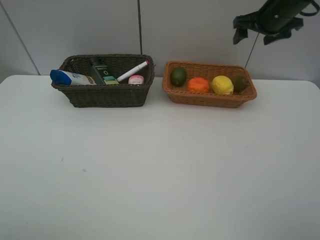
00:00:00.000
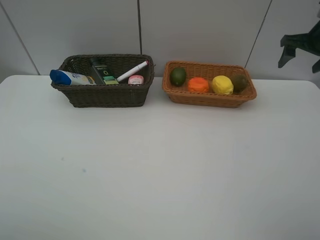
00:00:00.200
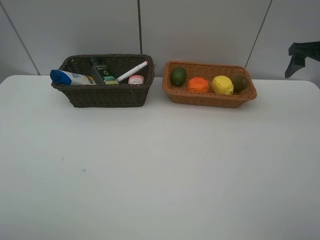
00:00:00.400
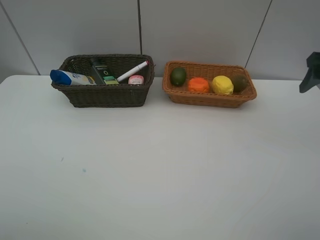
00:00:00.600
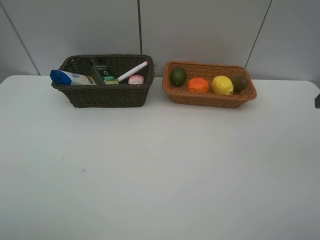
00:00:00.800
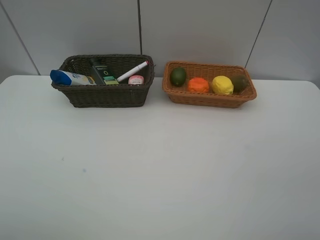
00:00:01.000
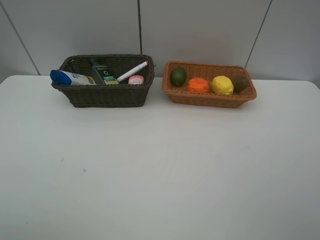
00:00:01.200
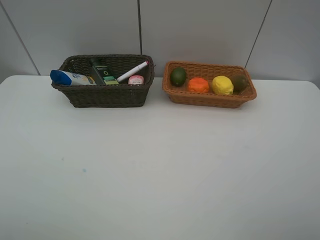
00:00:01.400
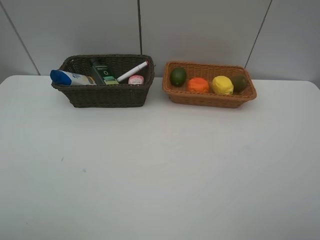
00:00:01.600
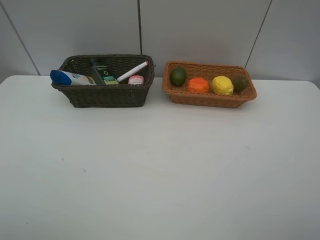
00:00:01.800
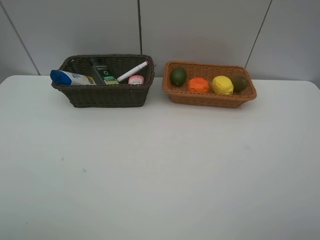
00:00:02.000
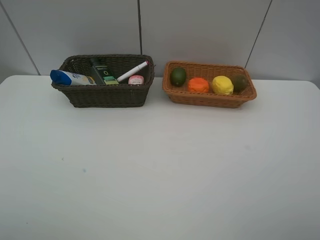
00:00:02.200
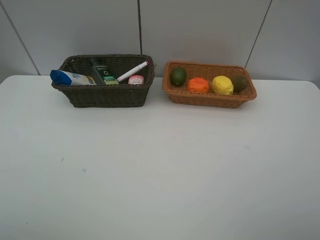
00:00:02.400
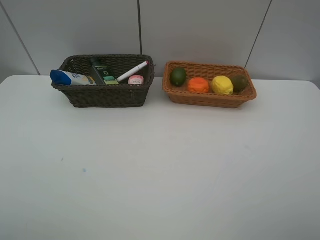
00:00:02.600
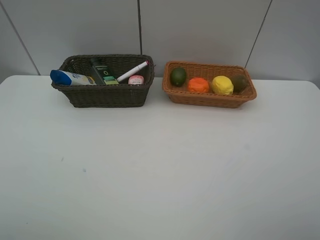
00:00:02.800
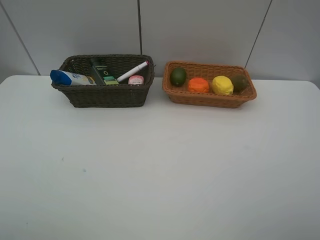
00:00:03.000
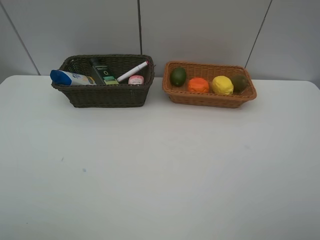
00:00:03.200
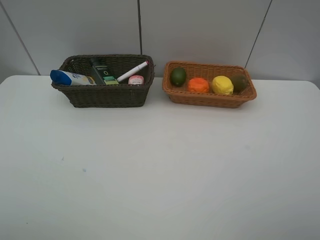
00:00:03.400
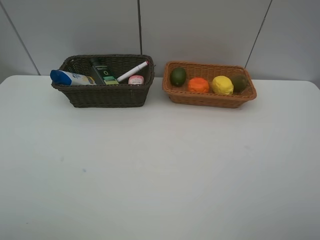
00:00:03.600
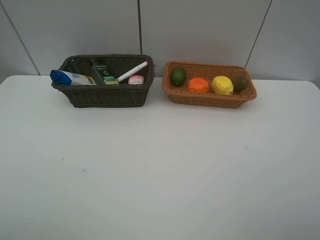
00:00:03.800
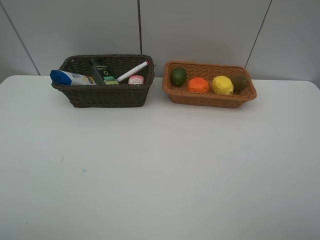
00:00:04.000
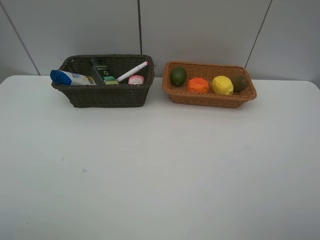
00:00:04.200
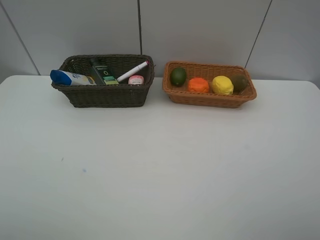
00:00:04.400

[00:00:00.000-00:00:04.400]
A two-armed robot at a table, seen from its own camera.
Task of the whole recording: Place multiple objects separately in different baskets.
00:00:00.000 to 00:00:01.400: The right gripper heads backward, covering about 40 cm.
00:00:03.000 to 00:00:04.400: The two grippers keep their place.

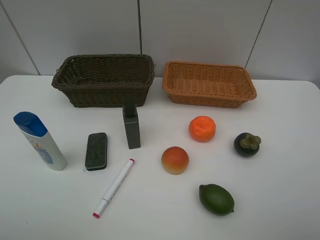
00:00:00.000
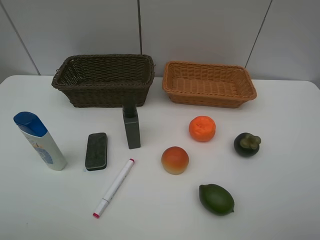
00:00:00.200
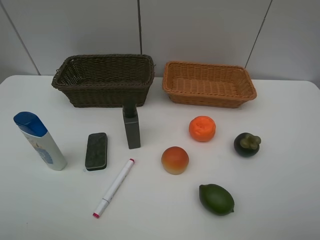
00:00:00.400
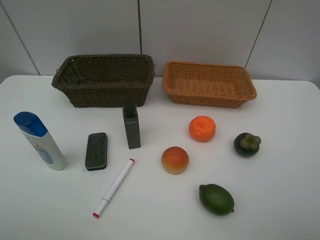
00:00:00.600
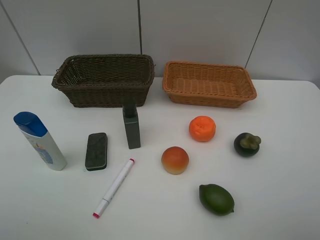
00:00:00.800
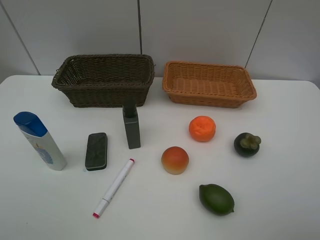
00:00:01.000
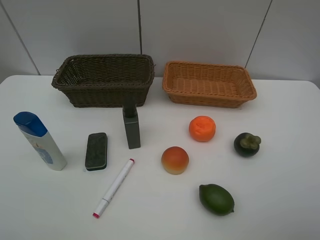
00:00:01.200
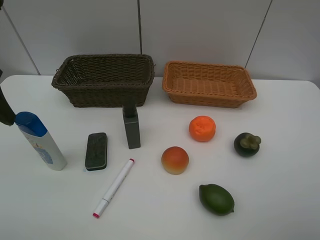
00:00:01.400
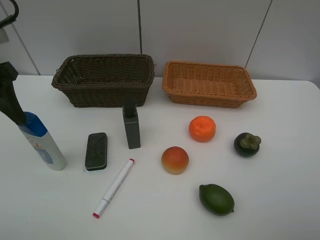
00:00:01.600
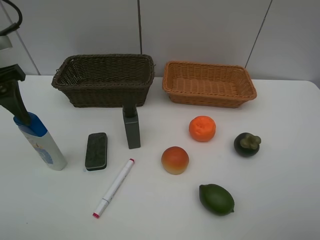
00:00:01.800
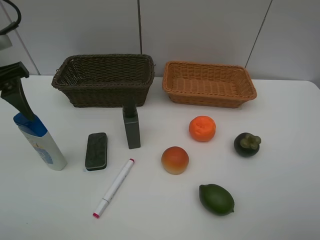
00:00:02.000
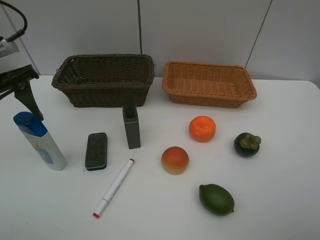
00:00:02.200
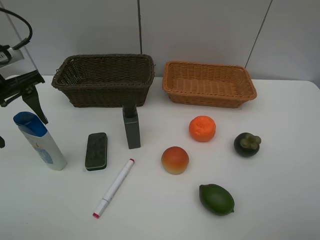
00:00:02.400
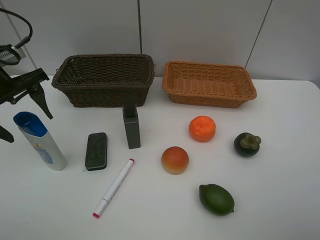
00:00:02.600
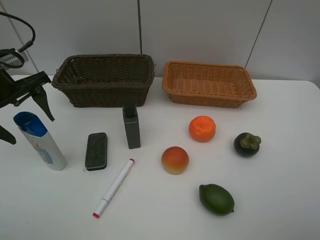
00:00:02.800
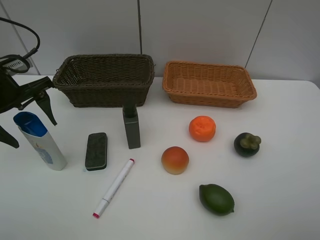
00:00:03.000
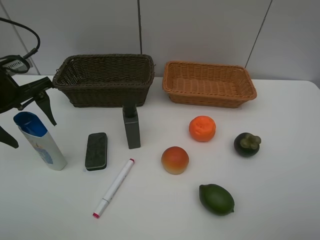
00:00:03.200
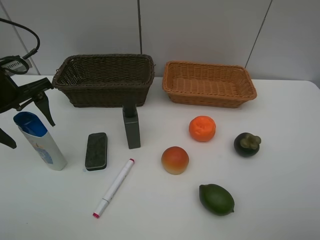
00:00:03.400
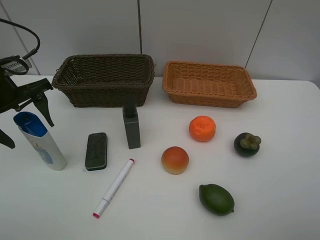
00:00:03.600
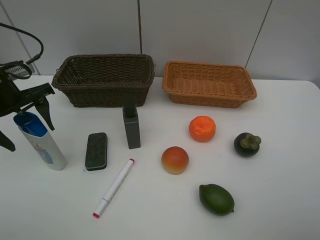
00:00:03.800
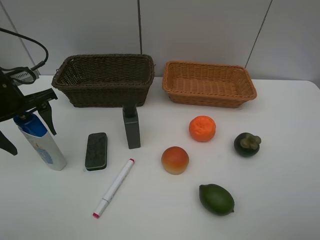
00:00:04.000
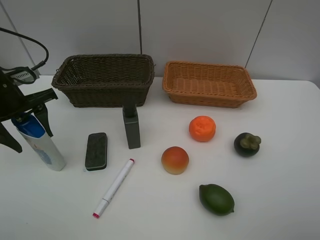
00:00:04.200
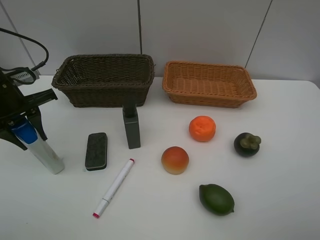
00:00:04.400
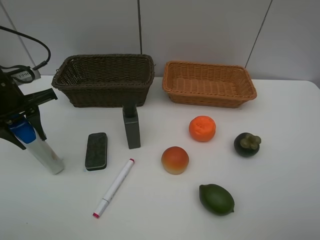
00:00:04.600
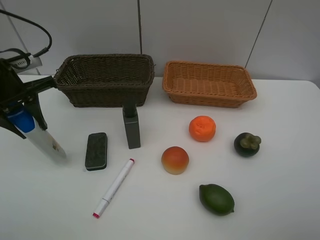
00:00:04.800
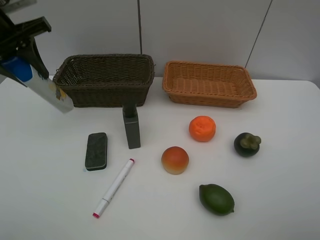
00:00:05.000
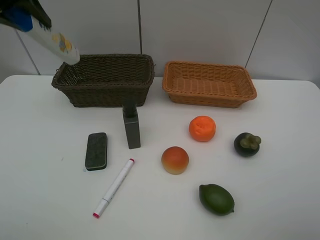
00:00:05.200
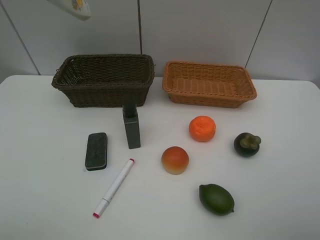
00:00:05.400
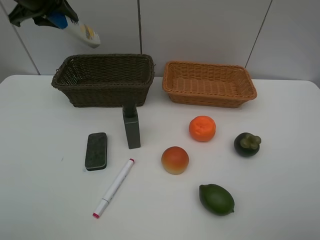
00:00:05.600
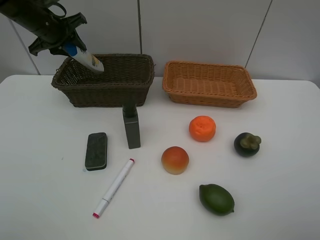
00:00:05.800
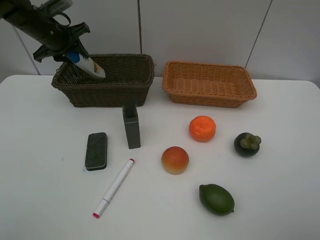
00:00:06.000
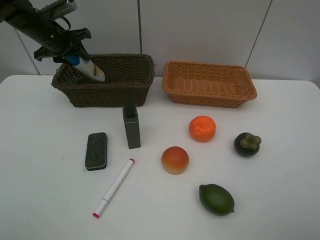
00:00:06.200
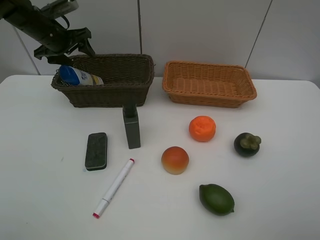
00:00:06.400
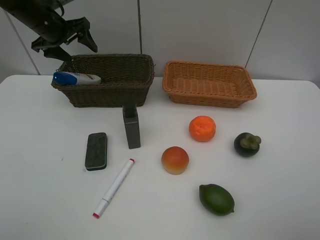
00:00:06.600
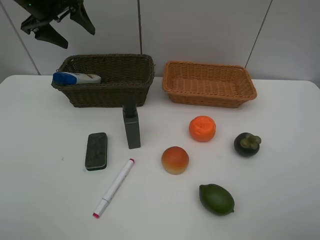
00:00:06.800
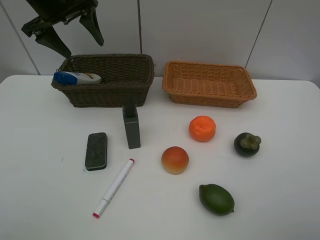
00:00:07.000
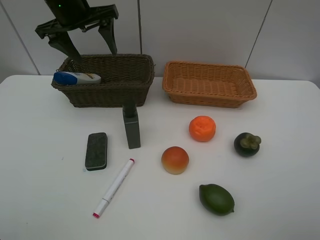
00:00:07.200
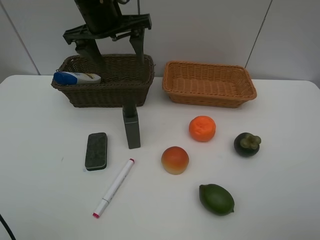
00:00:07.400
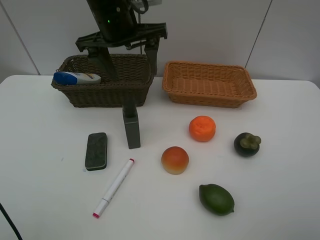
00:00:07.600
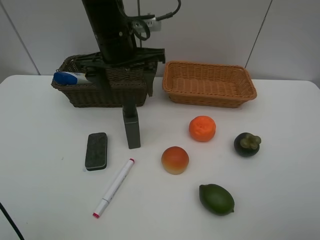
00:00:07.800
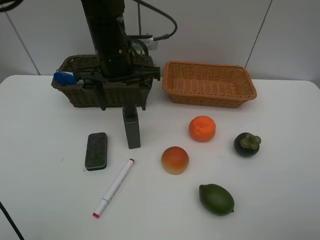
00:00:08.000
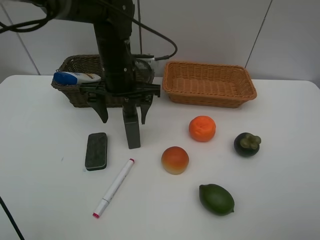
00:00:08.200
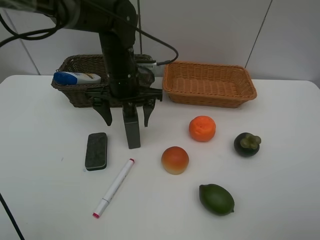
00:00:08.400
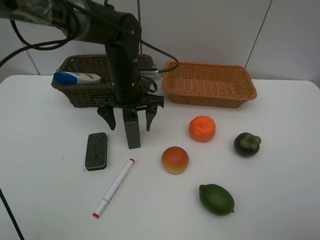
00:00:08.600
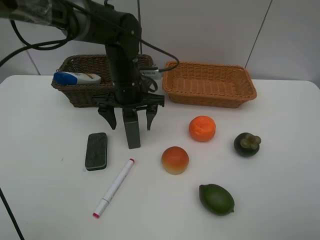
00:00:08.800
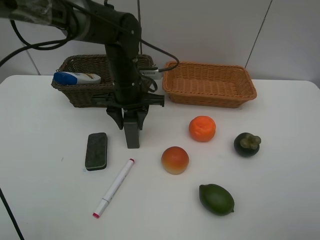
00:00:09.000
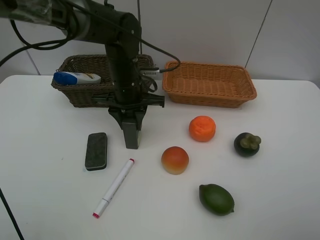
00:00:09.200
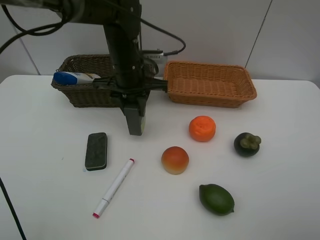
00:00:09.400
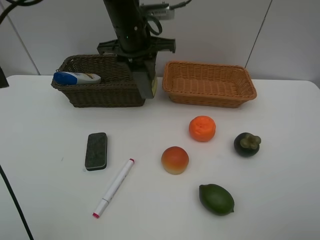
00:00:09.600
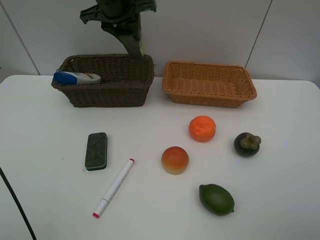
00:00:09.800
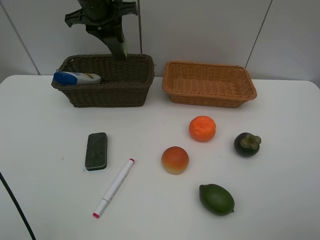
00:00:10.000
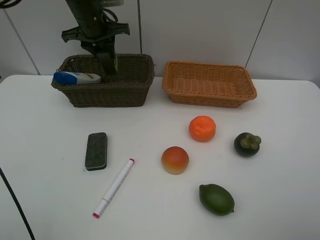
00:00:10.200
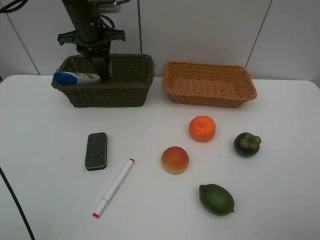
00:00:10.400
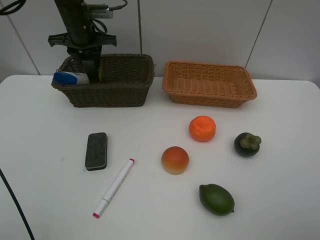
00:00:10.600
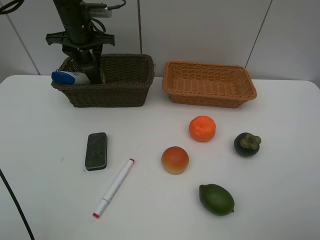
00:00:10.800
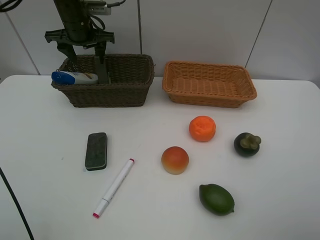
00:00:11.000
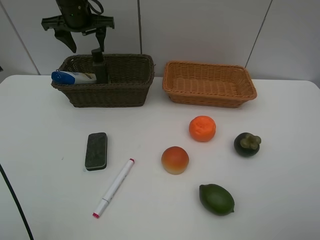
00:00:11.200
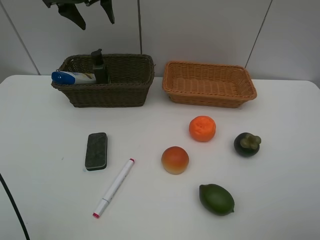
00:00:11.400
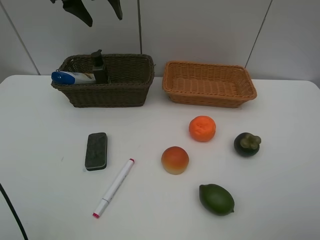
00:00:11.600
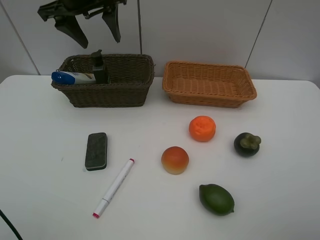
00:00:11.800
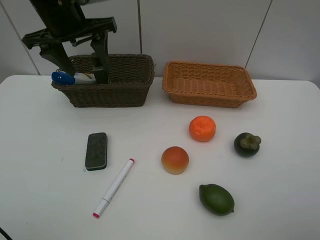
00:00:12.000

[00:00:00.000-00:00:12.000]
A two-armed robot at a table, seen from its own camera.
Task of the whole recording: Place multiple objects separately in different baskets.
Step, 00:00:00.000 to 00:00:04.800: Pick up the shampoo with left gripper.
Step, 00:00:05.000 to 00:00:06.600: Place the shampoo in the dark basket with left gripper.
Step, 00:00:06.800 to 00:00:09.200: Pick up the hard facial cleanser with left gripper.
Step, 00:00:09.400 to 00:00:11.000: Place the hard facial cleanser in the dark basket with left gripper.
00:00:00.000 to 00:00:01.600: The left gripper heads forward, covering approximately 20 cm.
00:00:01.600 to 00:00:03.000: The left gripper shifts approximately 10 cm downward and forward.
00:00:03.000 to 00:00:04.400: The left gripper closes.
00:00:04.400 to 00:00:06.000: The left gripper is displaced forward by some 20 cm.
00:00:06.000 to 00:00:07.600: The left gripper goes roughly 25 cm to the right, backward and upward, and opens.
00:00:07.600 to 00:00:09.000: The left gripper shifts approximately 15 cm downward, and closes up.
00:00:09.000 to 00:00:10.400: The left gripper shifts approximately 20 cm forward, to the left and upward.
00:00:10.400 to 00:00:12.000: The left gripper moves backward and upward, some 15 cm, and opens.

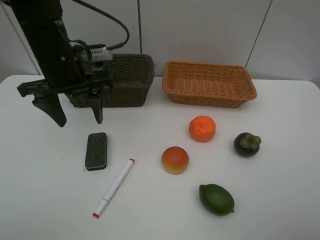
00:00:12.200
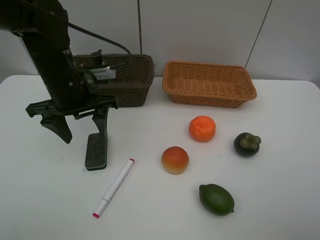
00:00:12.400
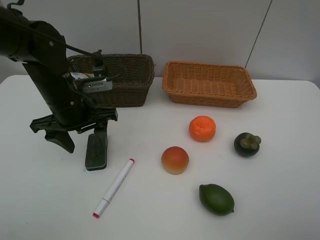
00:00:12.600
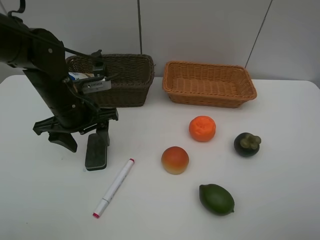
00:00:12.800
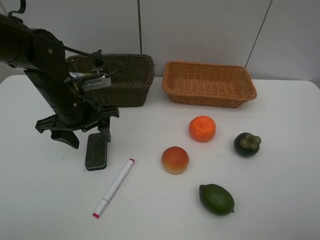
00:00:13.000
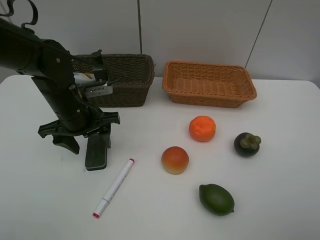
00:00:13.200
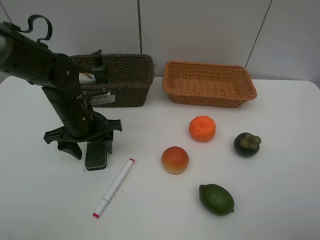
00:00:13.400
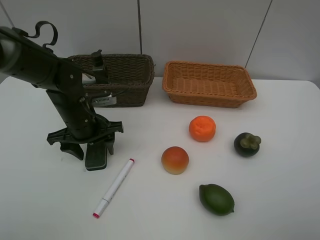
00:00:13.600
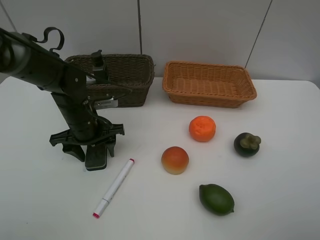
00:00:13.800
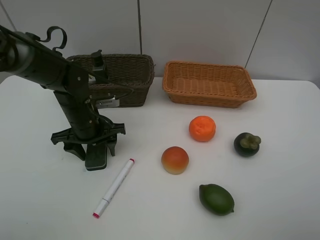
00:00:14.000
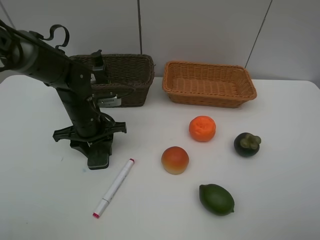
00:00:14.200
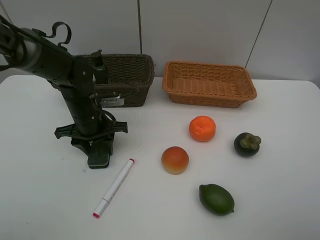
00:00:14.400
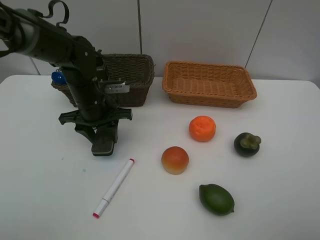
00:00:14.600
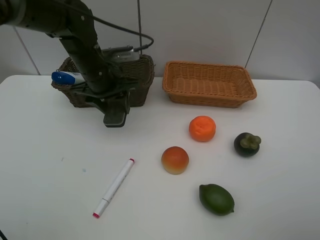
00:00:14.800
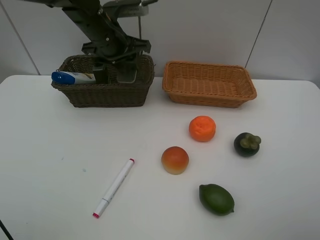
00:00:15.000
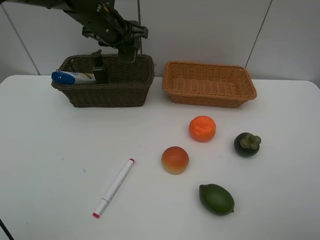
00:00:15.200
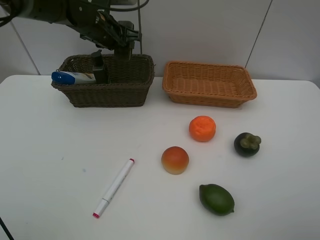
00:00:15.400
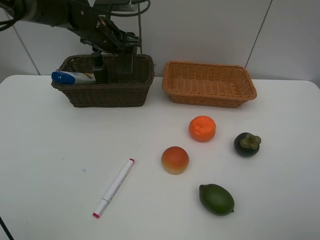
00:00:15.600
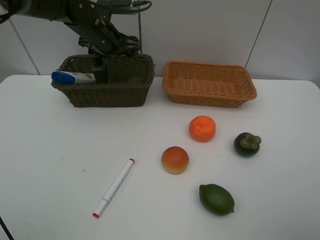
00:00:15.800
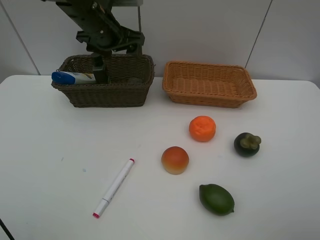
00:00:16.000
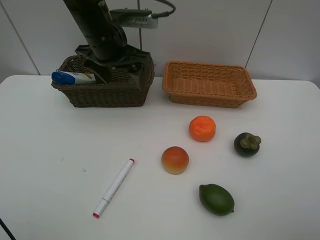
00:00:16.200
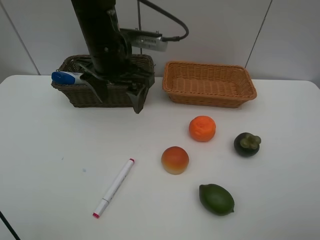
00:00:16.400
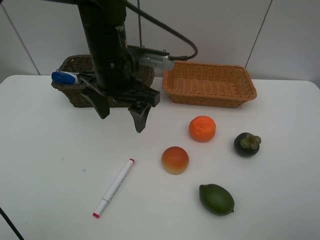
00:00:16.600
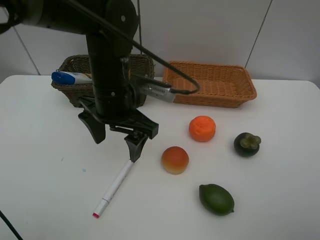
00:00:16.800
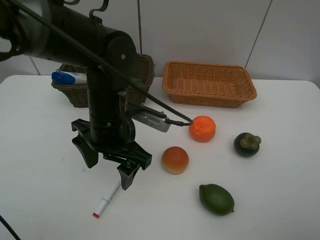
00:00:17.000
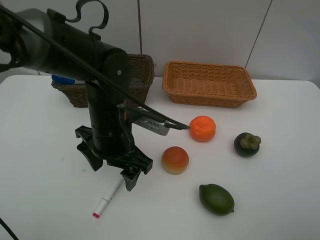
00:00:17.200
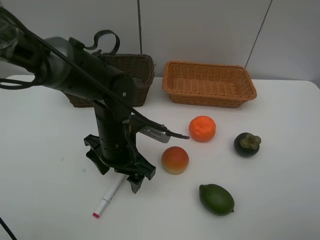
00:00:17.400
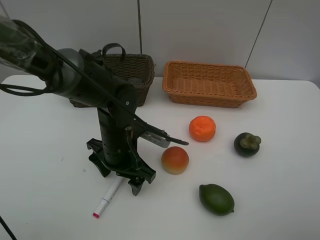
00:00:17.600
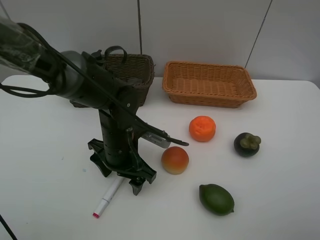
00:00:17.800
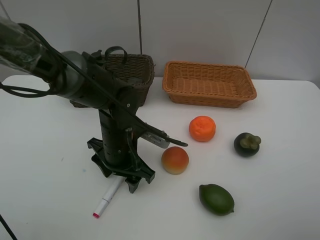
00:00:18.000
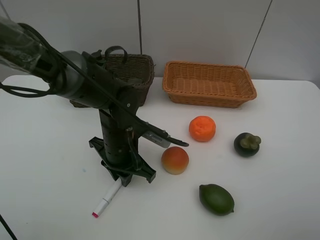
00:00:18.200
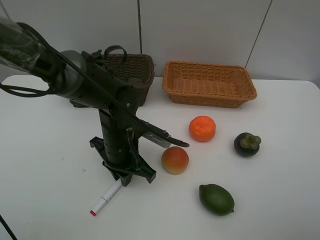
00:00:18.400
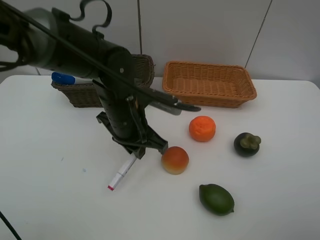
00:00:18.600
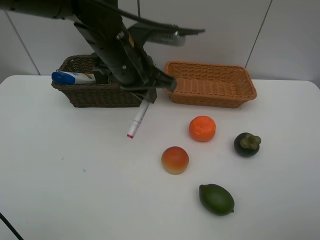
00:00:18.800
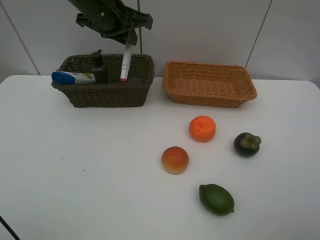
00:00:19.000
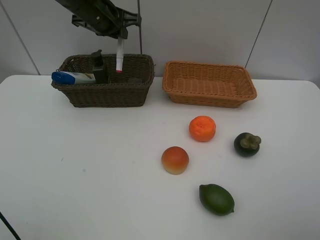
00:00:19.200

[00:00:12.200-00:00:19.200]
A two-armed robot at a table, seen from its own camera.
Task of the whole recording: Place multiple objects separately in different baskets.
Step, 00:00:12.200 to 00:00:14.600: Pick up blackboard eraser with left gripper.
Step, 00:00:14.800 to 00:00:15.800: Place the blackboard eraser in the dark basket with left gripper.
Step, 00:00:16.000 to 00:00:18.400: Pick up the red marker with left gripper.
00:00:12.200 to 00:00:13.600: The left gripper moves downward, about 10 cm.
00:00:13.600 to 00:00:15.000: The left gripper is displaced upward and forward by some 20 cm.
00:00:15.000 to 00:00:16.400: The left gripper travels backward by about 10 cm, and opens up.
00:00:16.400 to 00:00:17.800: The left gripper goes about 20 cm downward and backward.
00:00:17.800 to 00:00:19.200: The left gripper is displaced forward and upward by roughly 25 cm, and closes its fingers.
